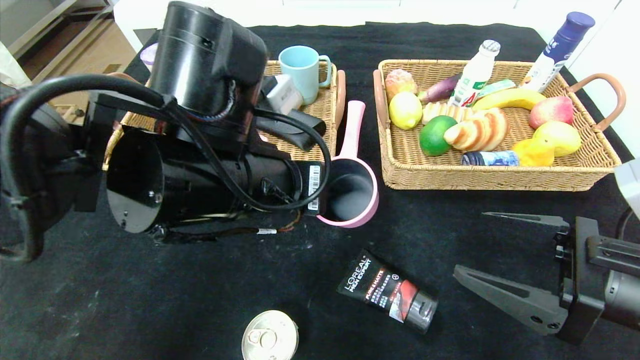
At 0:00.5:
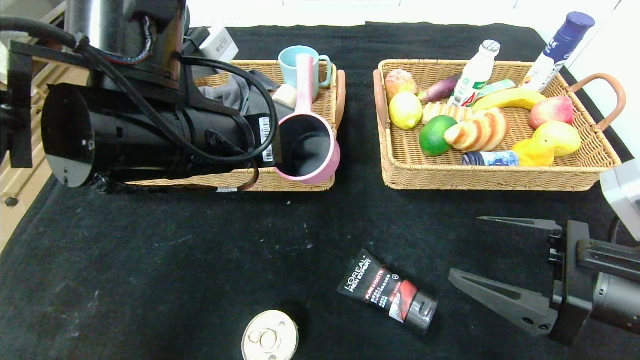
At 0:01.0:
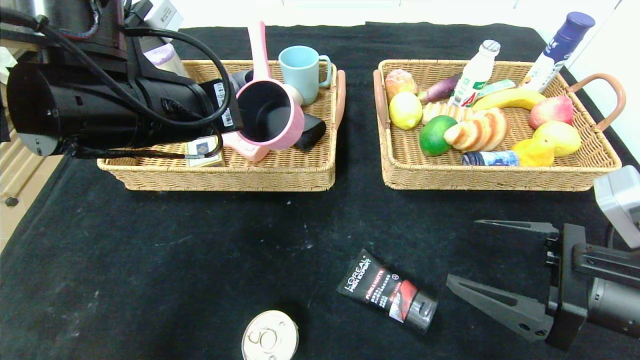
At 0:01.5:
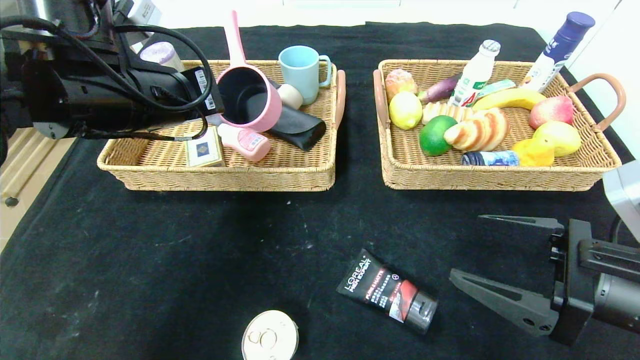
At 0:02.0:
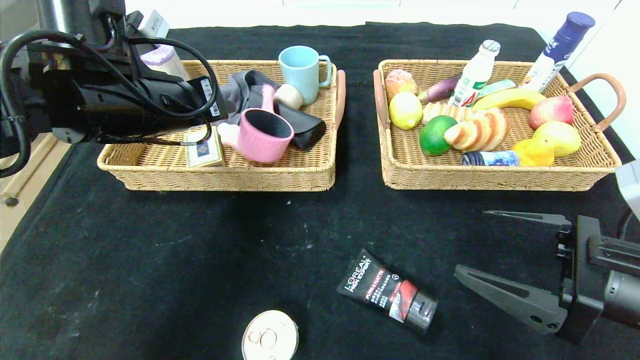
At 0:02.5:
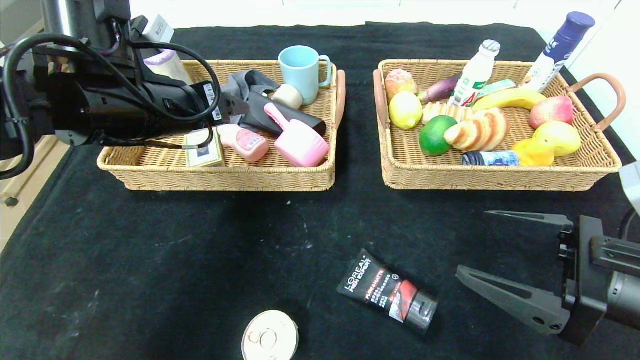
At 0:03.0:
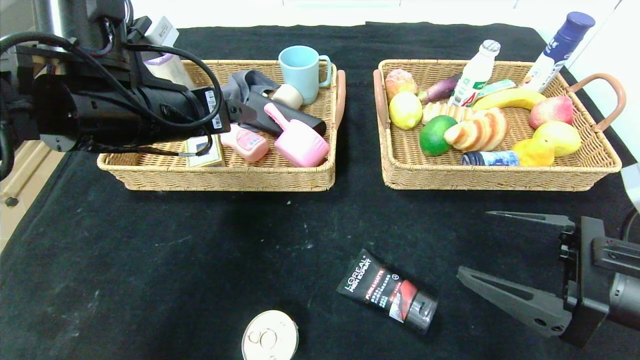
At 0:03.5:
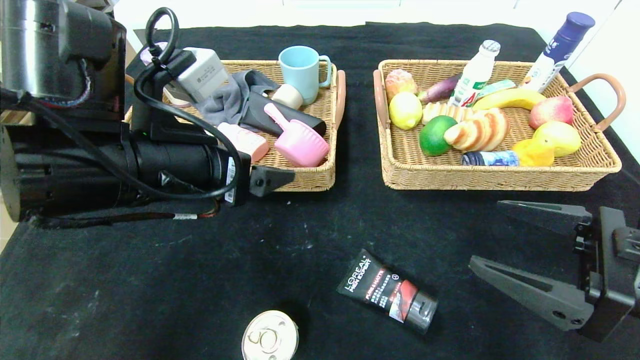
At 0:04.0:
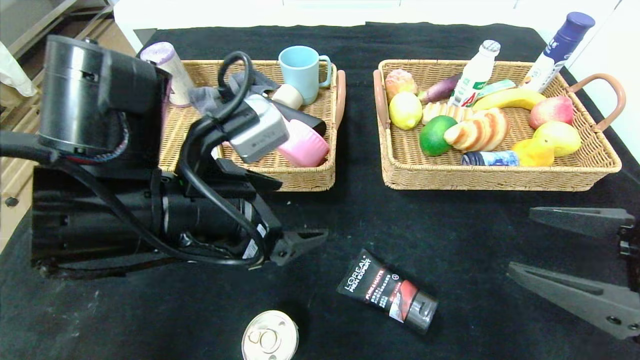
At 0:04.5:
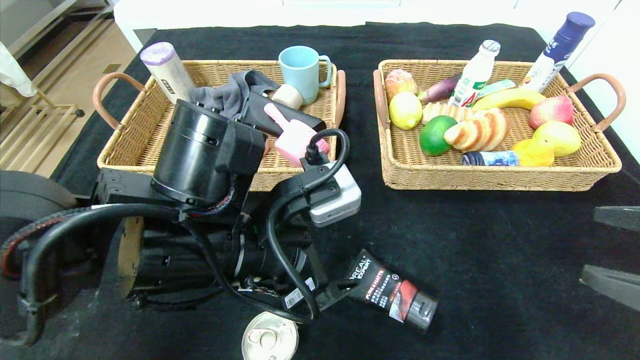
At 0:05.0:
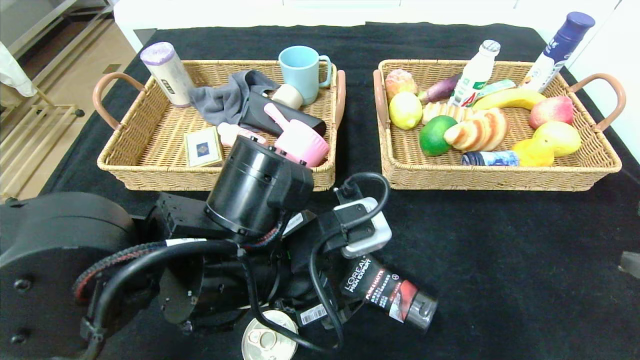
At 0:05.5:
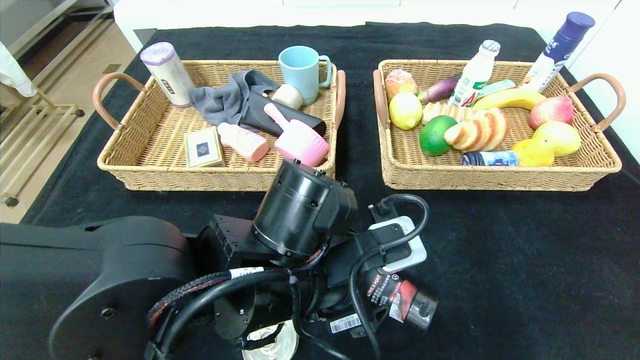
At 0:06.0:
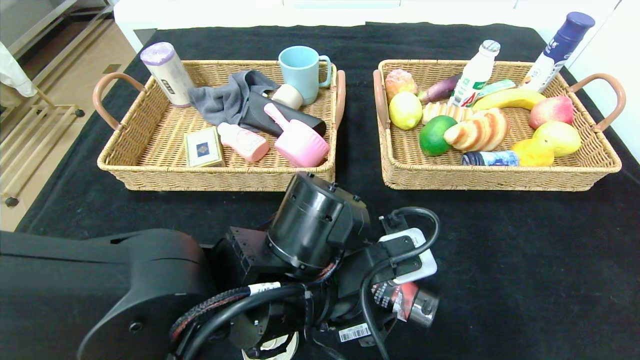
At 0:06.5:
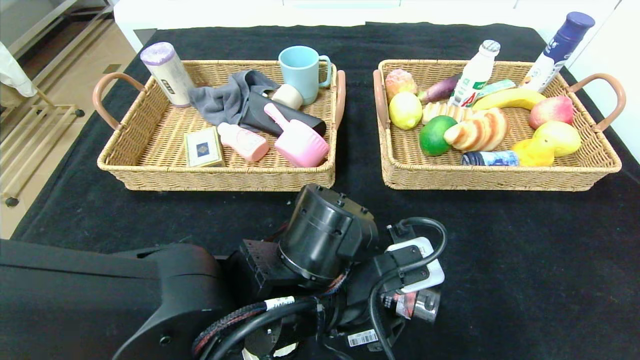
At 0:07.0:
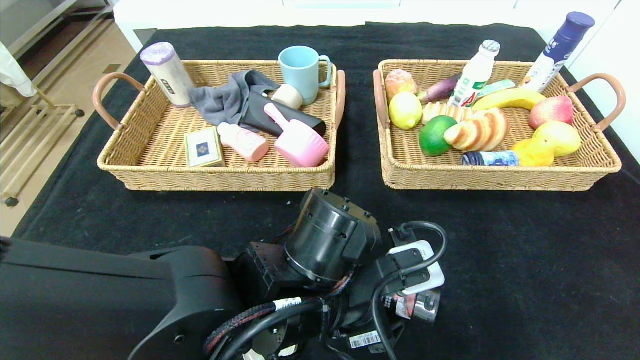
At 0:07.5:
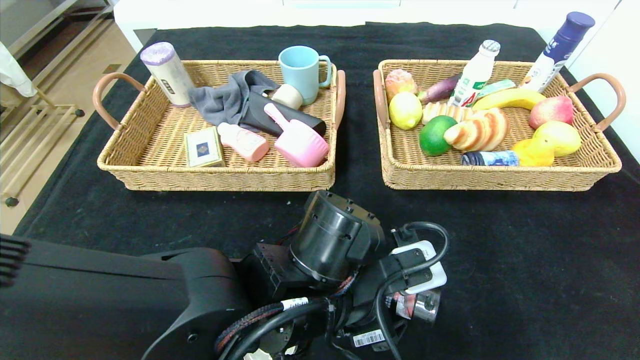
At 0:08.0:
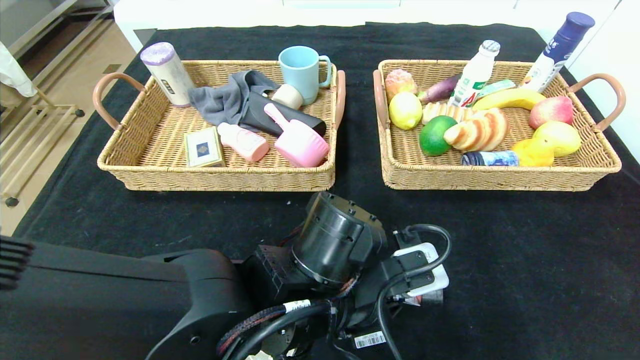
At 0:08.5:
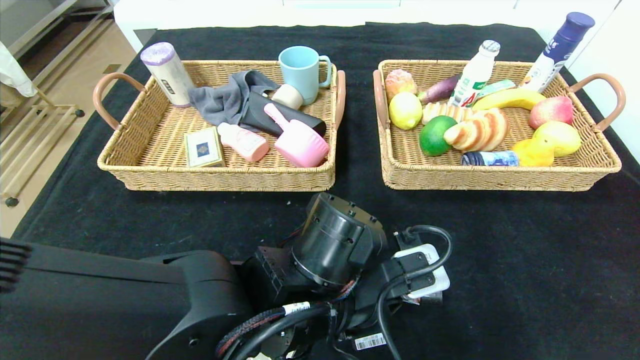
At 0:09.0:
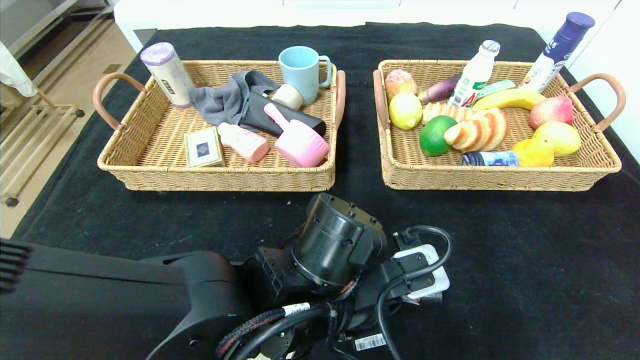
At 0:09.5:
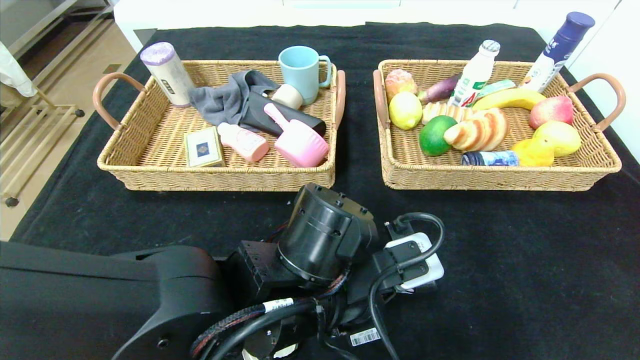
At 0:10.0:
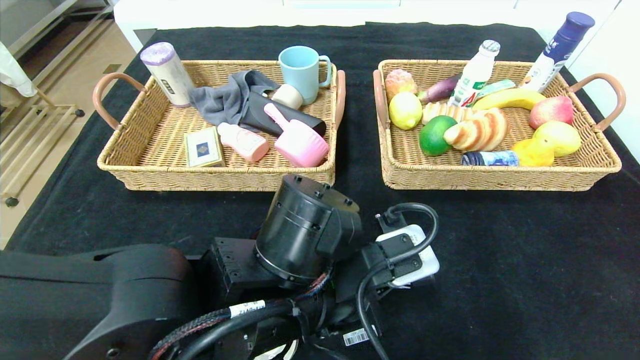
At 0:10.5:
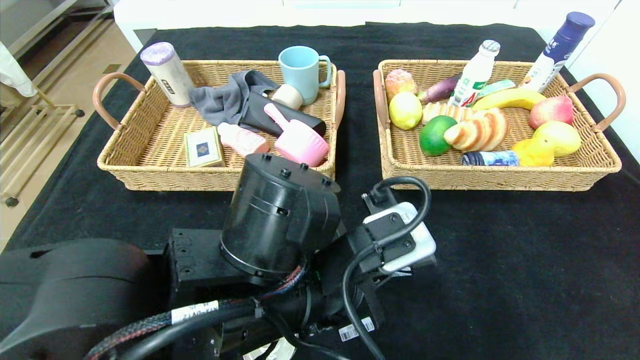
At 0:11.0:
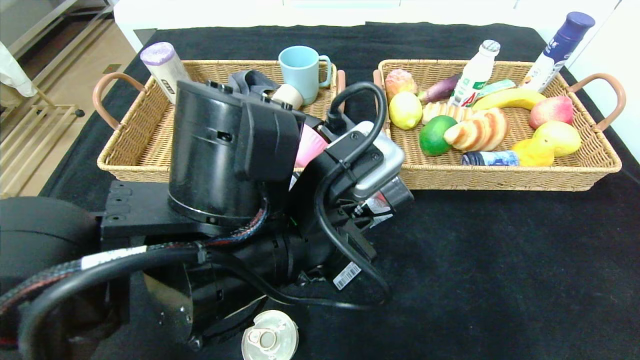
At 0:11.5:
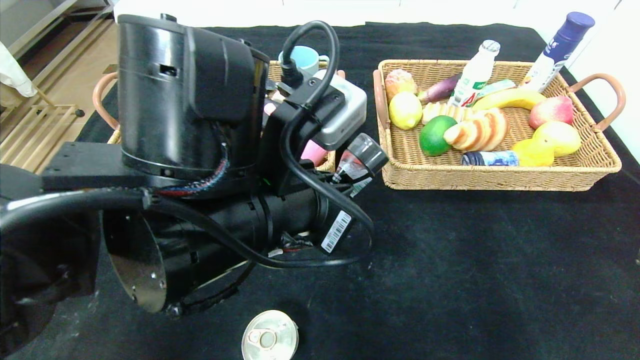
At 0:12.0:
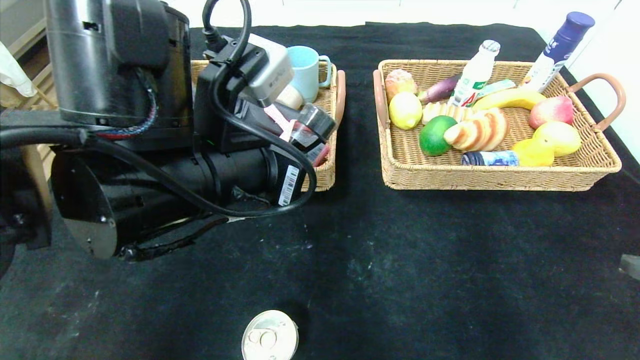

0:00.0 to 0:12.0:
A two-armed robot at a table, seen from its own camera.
Step, 0:00.0 to 0:02.0: Grasp the pink pot and put it in the left basket.
0:00.0 to 0:02.0: The left gripper is displaced to the left and forward by roughly 15 cm.
0:02.0 to 0:04.0: The left gripper travels backward, to the right and downward by some 15 cm, and opens.
0:04.0 to 0:06.0: The right gripper travels upward and backward by approximately 10 cm, while the left gripper heads to the right and downward, covering some 15 cm.
0:06.0 to 0:08.0: The left gripper closes its fingers.
0:08.0 to 0:10.0: The grippers make only small movements.
0:10.0 to 0:12.0: The left gripper shifts roughly 10 cm upward and to the left.

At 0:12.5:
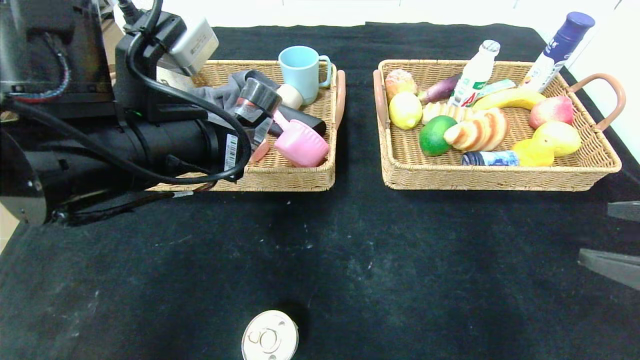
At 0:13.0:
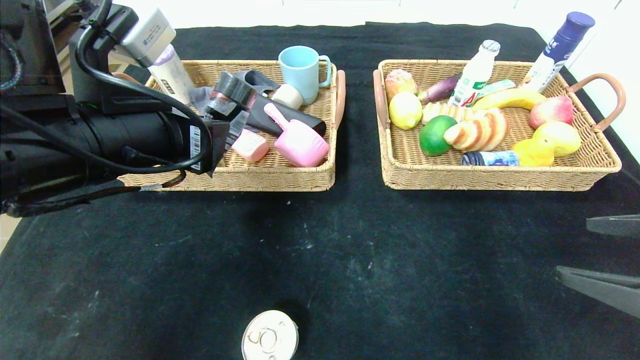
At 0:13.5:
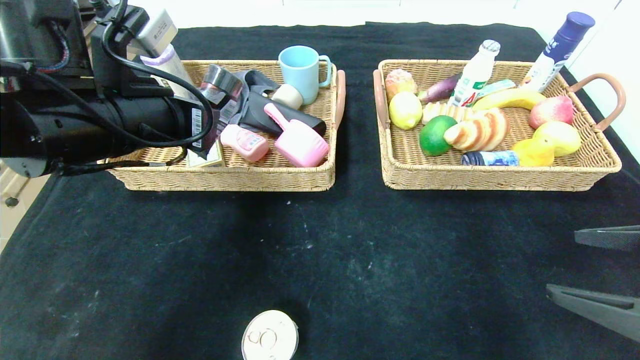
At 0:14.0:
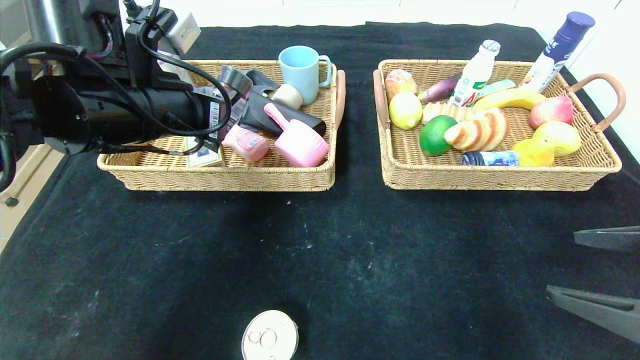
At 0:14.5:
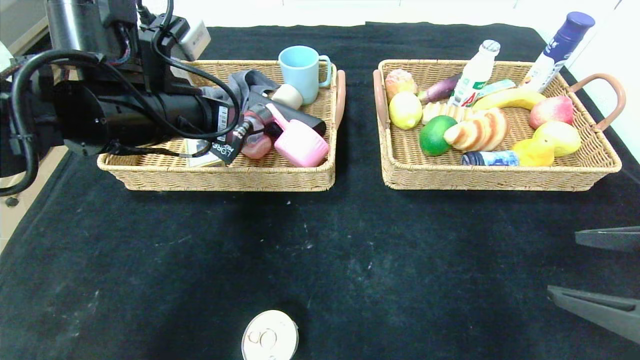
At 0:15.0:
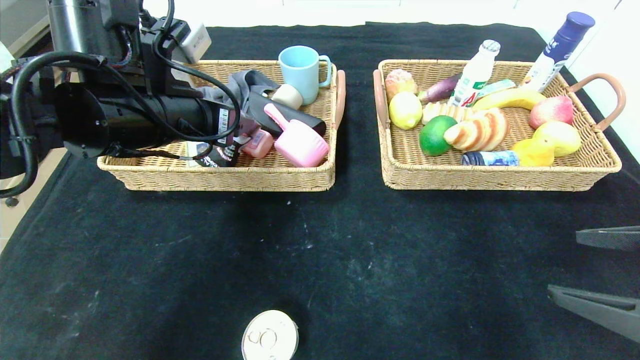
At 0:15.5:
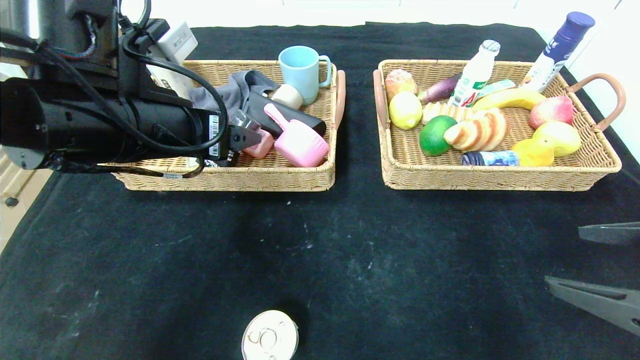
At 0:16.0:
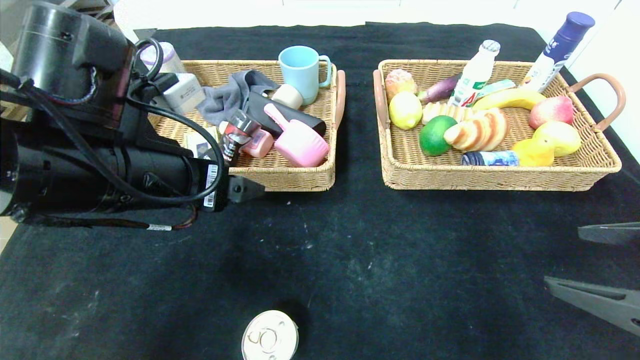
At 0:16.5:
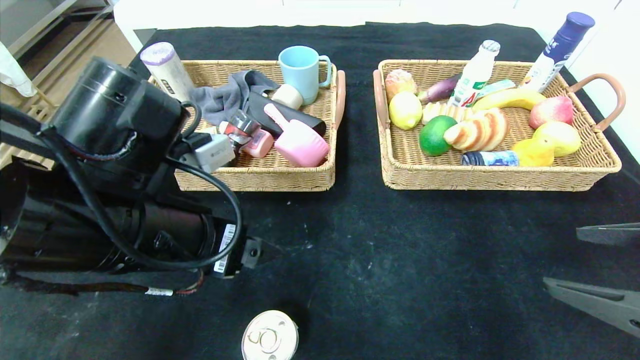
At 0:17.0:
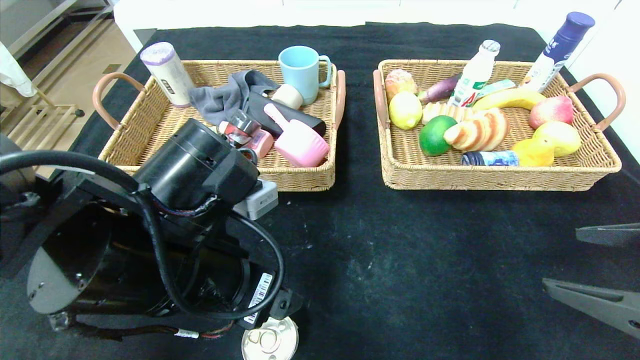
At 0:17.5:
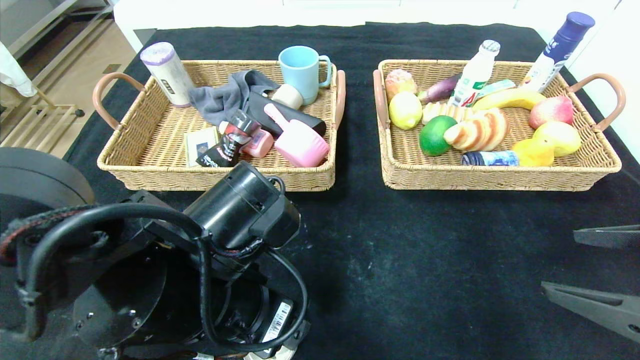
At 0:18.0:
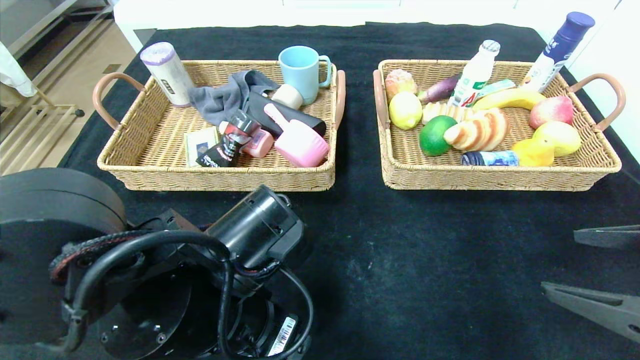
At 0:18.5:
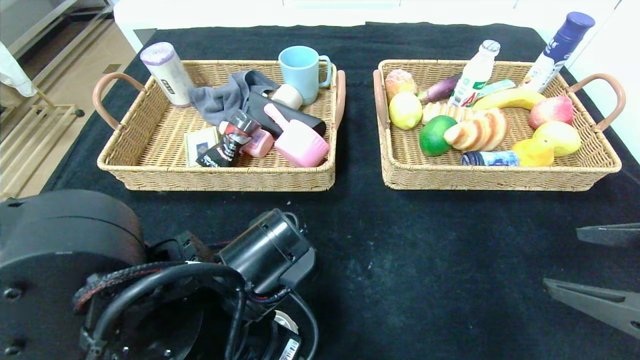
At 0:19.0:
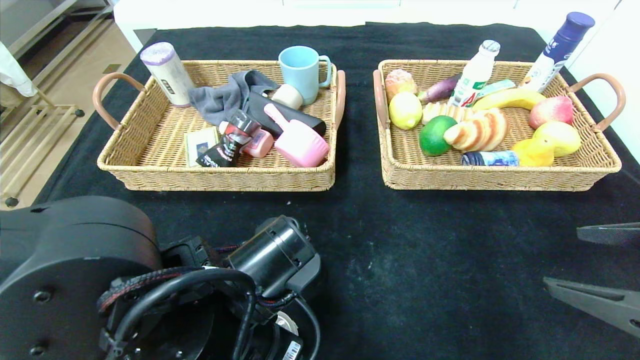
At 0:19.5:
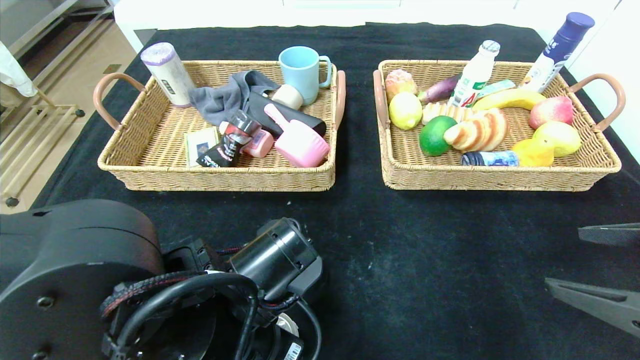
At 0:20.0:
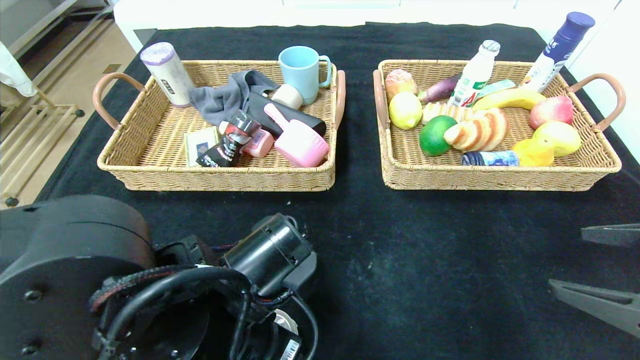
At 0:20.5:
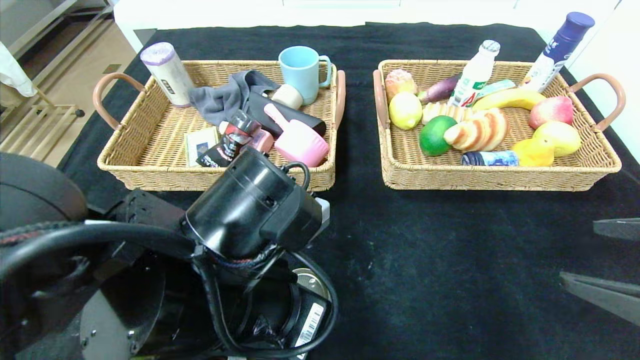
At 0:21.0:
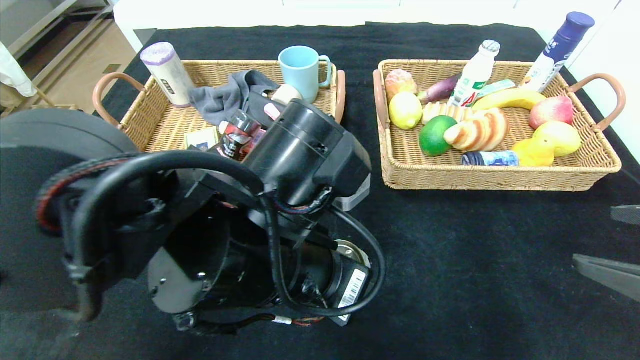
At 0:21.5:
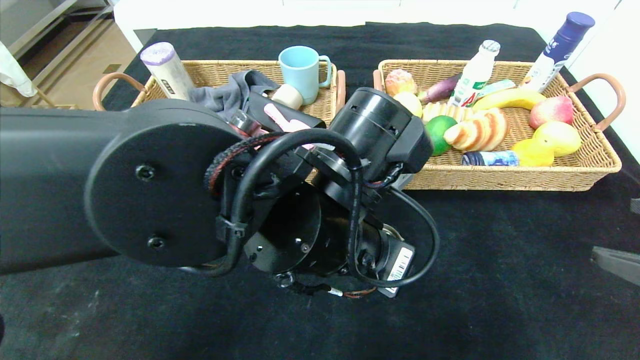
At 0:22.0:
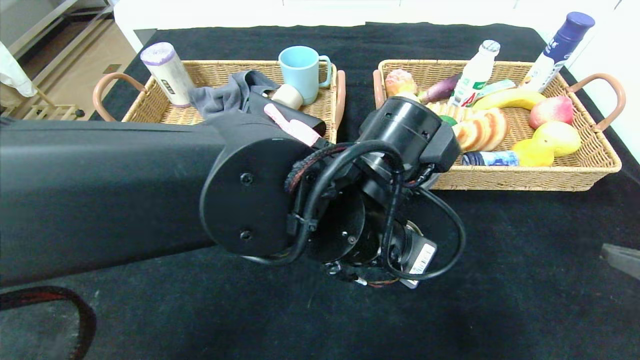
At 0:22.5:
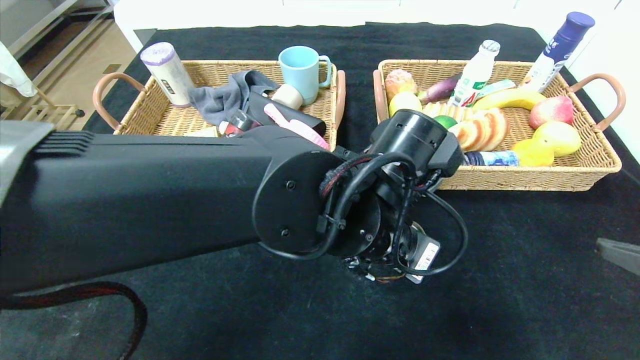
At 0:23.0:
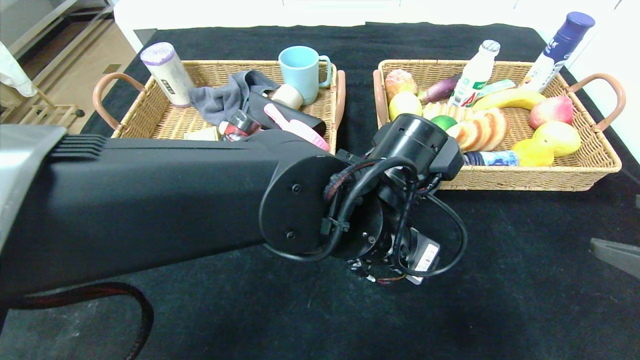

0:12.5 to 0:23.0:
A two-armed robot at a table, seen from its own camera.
Step, 0:12.5 to 0:14.5: Grasp the soft cleanser and put it in the left basket.
0:12.5 to 0:14.5: The left gripper travels forward by roughly 10 cm.
0:14.5 to 0:16.5: The left gripper goes about 10 cm backward and downward, and opens its fingers.
0:16.5 to 0:19.0: The left gripper goes approximately 10 cm downward and to the right.
0:19.0 to 0:21.0: The left gripper is displaced upward by some 5 cm.
0:21.0 to 0:23.0: The left gripper is displaced to the right and forward by roughly 10 cm.
